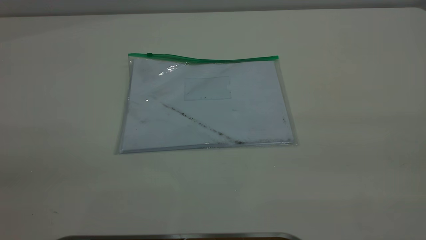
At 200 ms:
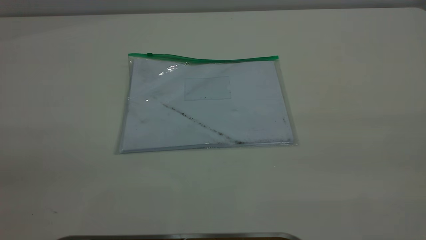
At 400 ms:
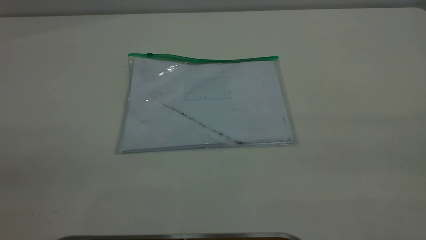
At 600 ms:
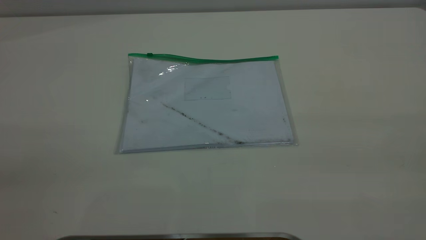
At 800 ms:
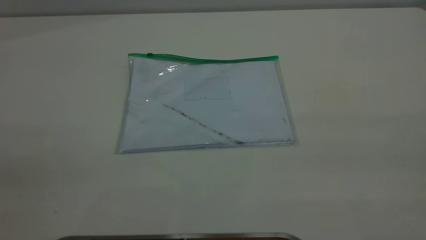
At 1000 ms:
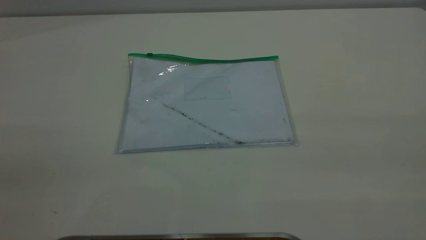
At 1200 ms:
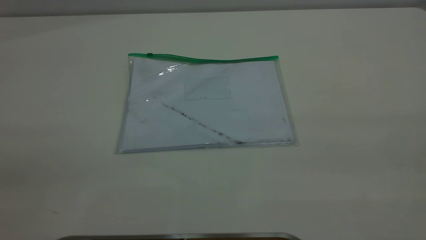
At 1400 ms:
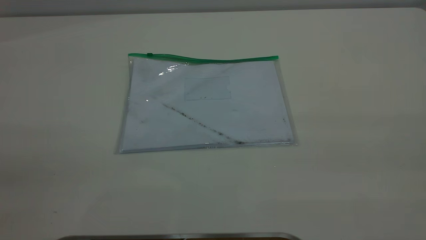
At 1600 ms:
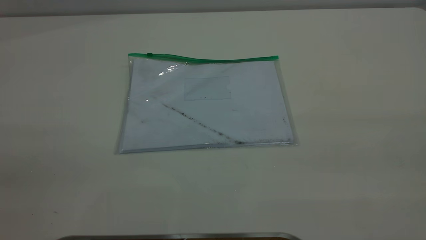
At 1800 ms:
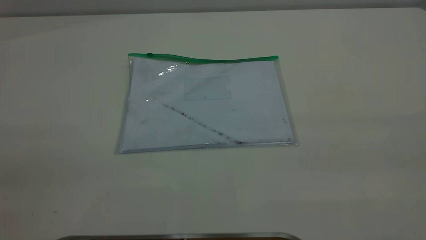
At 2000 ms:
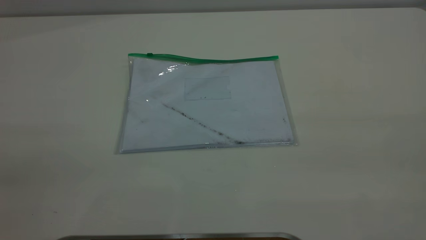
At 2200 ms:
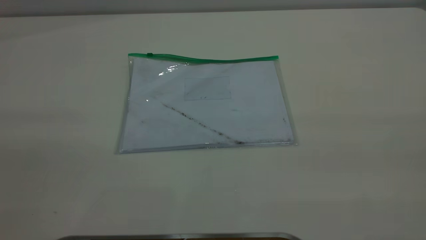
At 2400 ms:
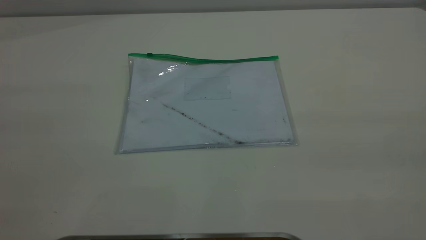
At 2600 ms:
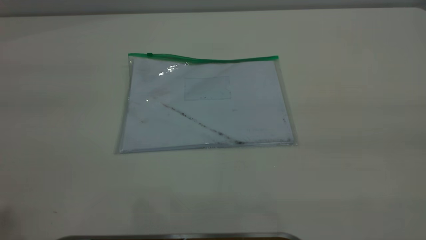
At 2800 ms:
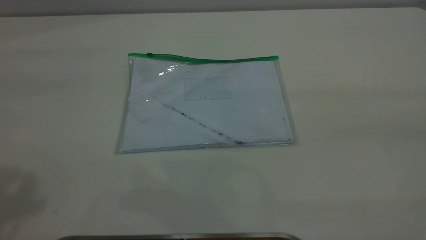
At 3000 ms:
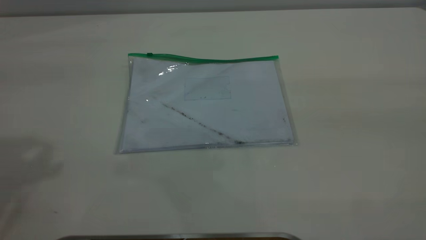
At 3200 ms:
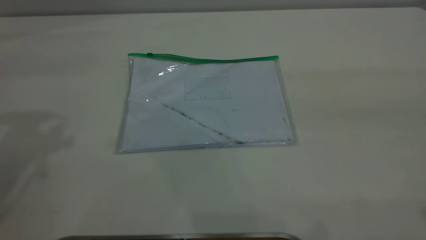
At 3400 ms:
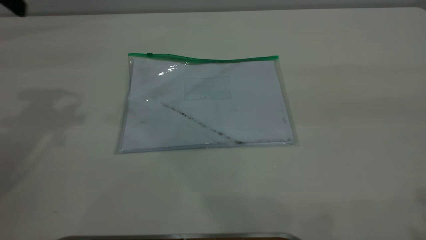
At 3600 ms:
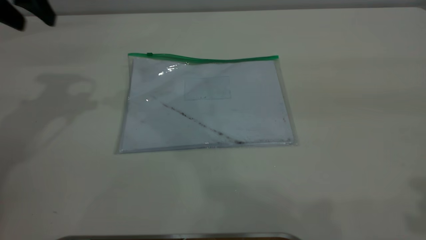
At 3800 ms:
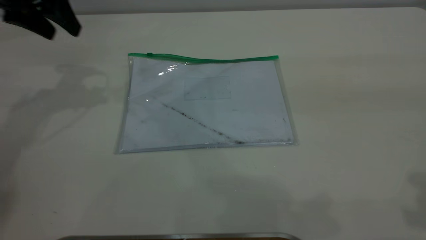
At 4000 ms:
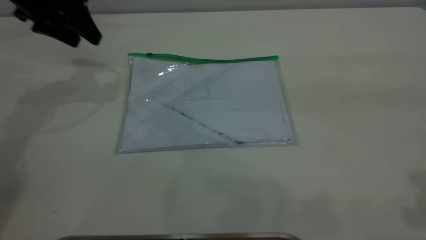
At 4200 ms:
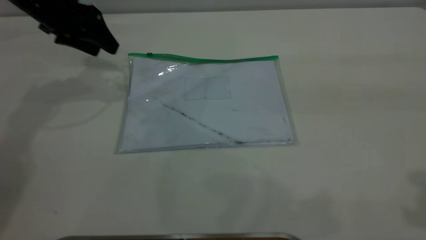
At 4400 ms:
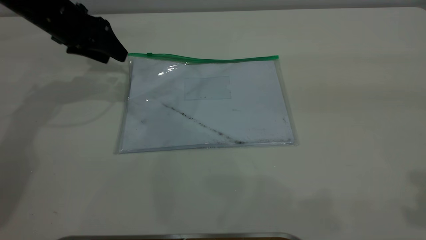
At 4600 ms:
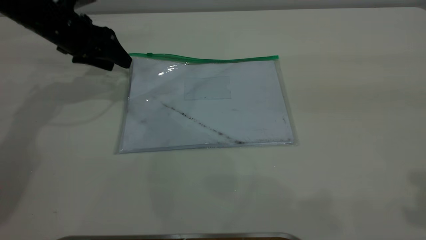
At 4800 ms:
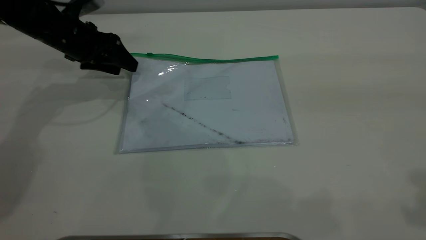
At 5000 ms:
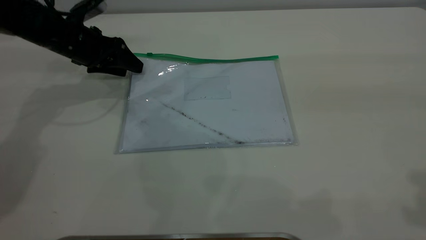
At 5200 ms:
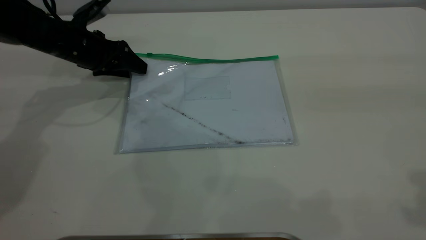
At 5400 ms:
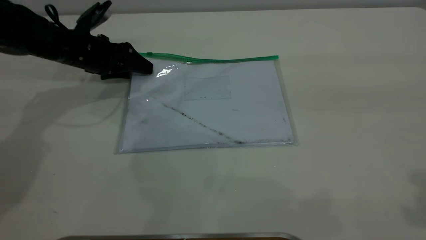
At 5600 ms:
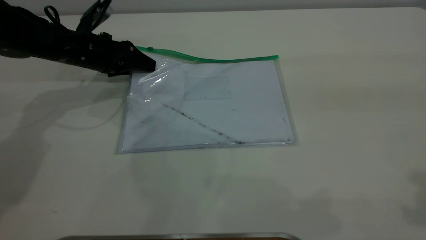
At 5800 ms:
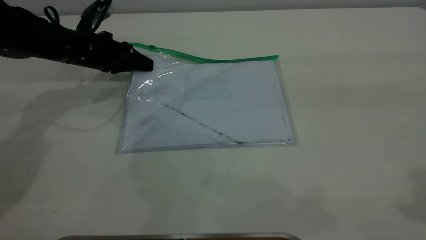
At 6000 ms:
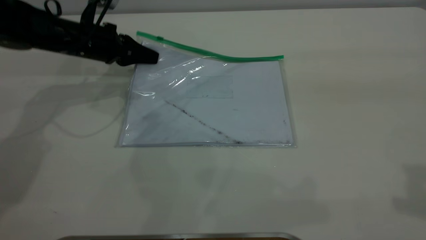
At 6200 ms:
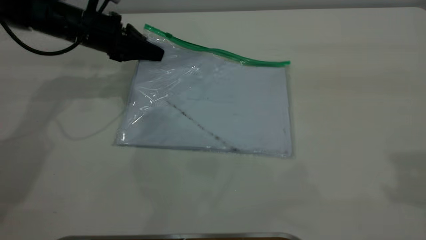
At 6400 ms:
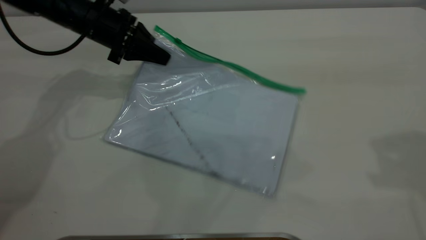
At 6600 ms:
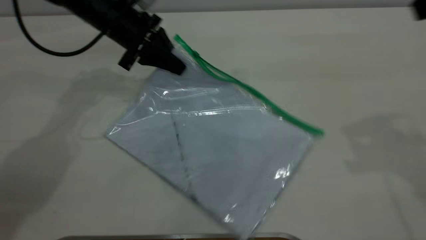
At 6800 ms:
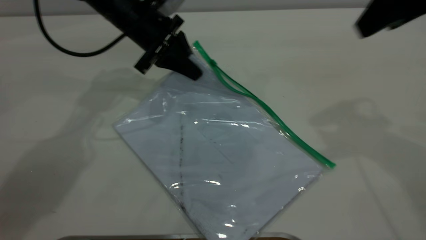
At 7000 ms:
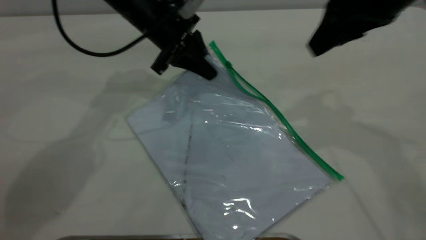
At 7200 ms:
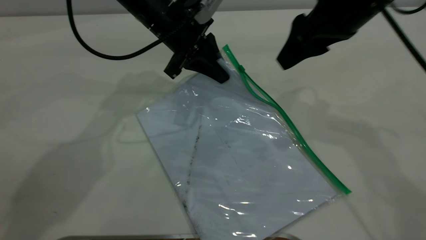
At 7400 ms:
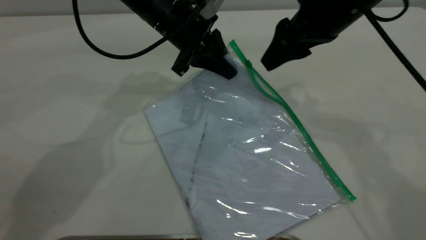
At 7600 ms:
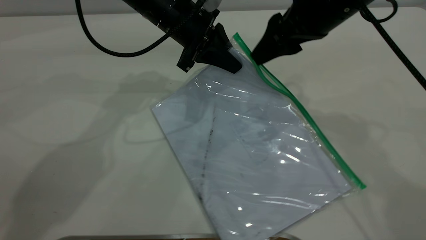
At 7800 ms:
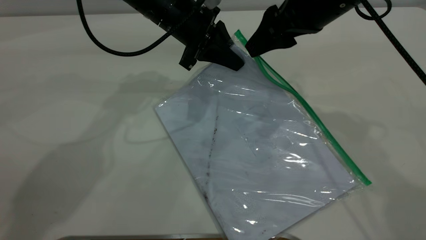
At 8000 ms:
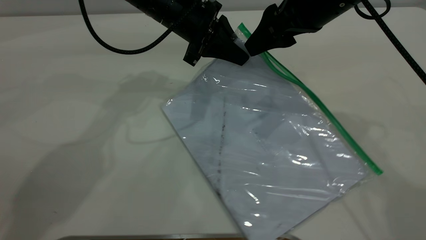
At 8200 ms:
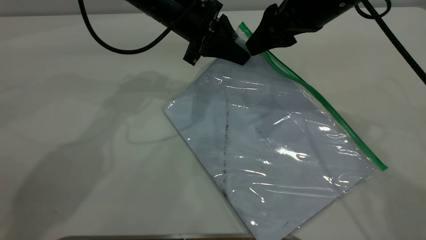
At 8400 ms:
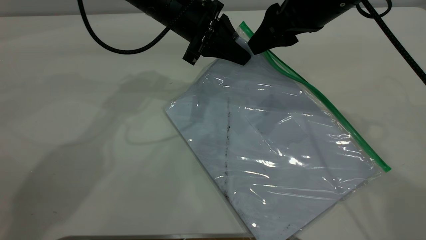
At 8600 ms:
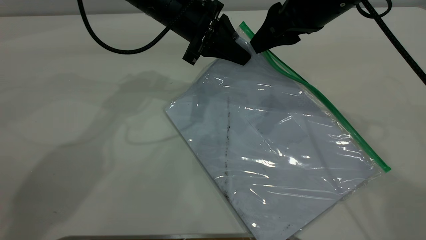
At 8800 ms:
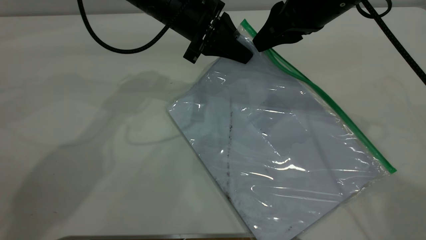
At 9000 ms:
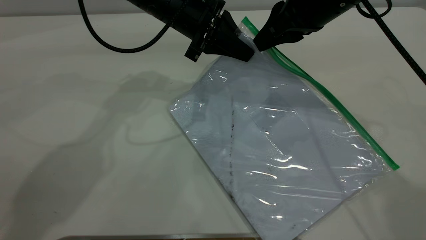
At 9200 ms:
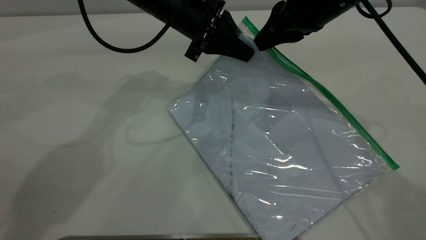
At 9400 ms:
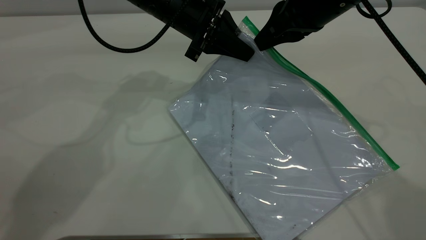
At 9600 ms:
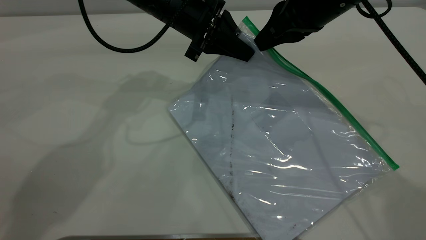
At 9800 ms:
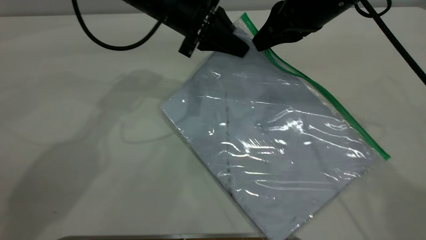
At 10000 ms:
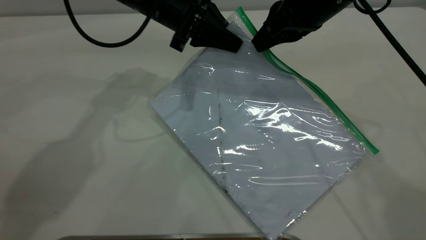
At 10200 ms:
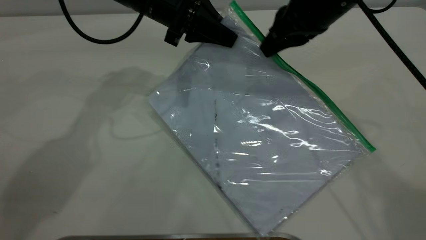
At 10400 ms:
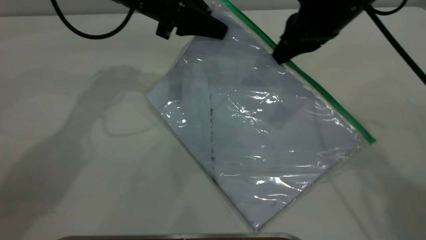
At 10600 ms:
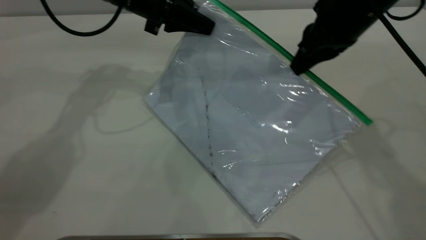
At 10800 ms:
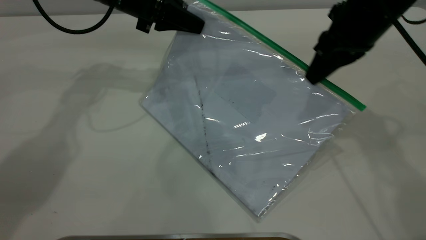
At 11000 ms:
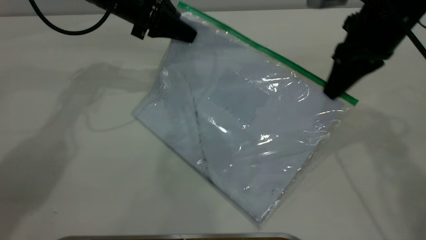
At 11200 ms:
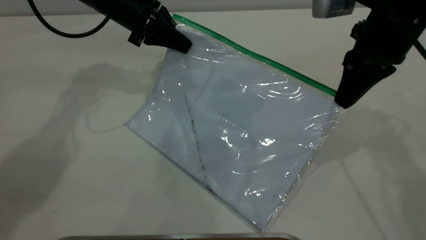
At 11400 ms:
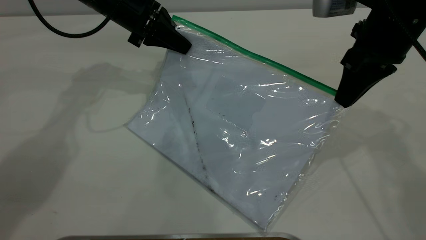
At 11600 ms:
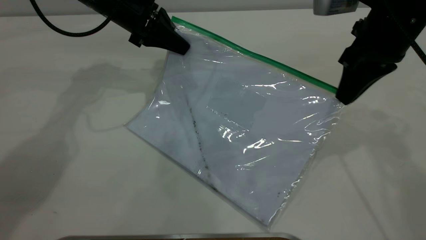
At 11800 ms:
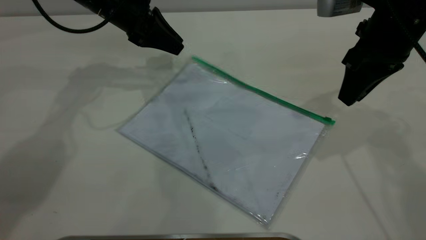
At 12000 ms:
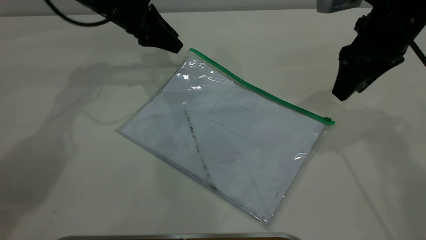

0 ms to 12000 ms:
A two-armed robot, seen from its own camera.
Step, 0 ms to 6000 ms: Pick up the transparent plastic bag with the left gripper.
Step, 6200 ms to 11600 ms: Pulling up the zipper on the transparent plastic bag with the right gripper to close it.
0 ms to 1600 ms: The two grippers keep their place.
3000 ms to 4400 ms: The left gripper shifts about 30 cm downward and forward.
4400 ms to 6000 ms: The left gripper heads downward, covering some 5 cm, and closes its fingers.
6000 ms to 7600 ms: The right gripper heads forward, to the left and downward, covering about 30 cm; the left gripper travels to the right by roughly 15 cm.
7600 ms to 9000 ms: The right gripper closes its fingers.
9000 ms to 10400 ms: The left gripper moves to the left, about 5 cm.
10400 ms to 12000 ms: The left gripper heads to the left, covering some 5 cm, and opens. The right gripper shifts about 5 cm to the right, and opens up.

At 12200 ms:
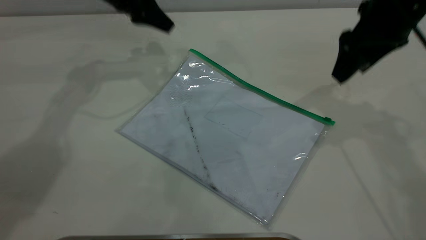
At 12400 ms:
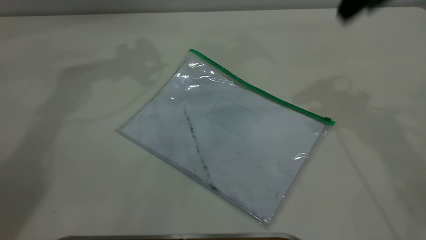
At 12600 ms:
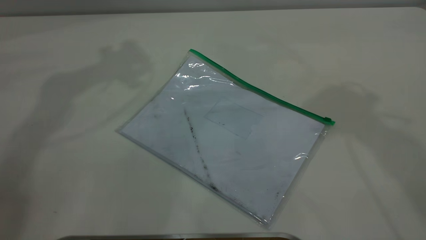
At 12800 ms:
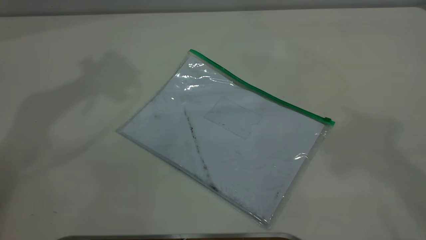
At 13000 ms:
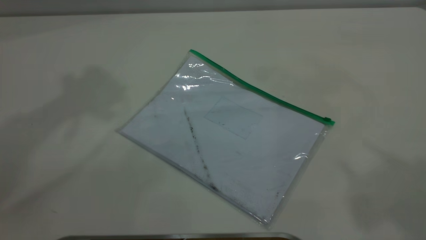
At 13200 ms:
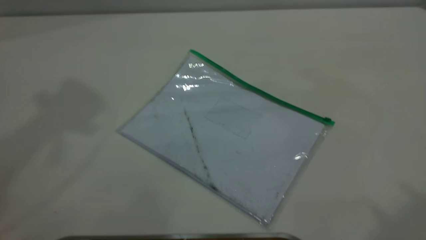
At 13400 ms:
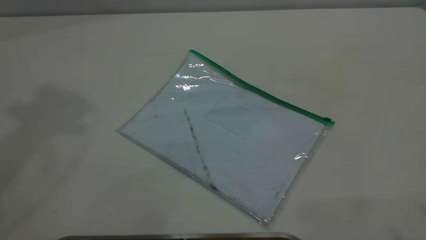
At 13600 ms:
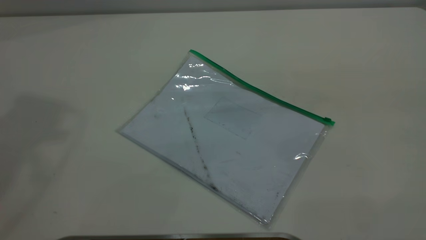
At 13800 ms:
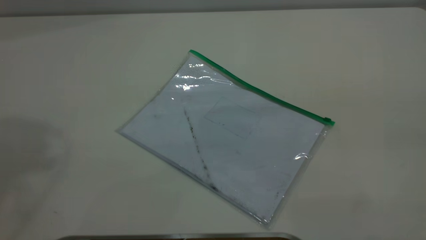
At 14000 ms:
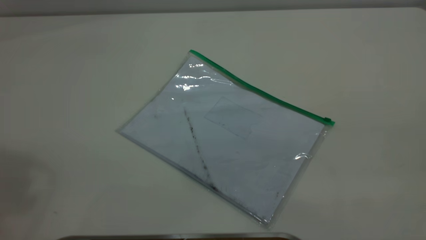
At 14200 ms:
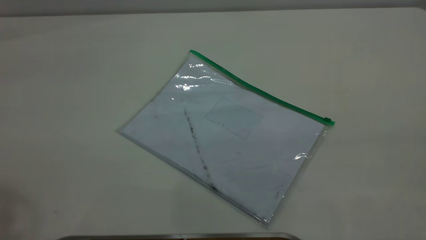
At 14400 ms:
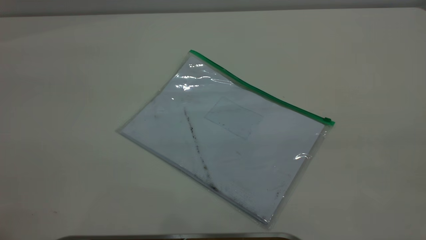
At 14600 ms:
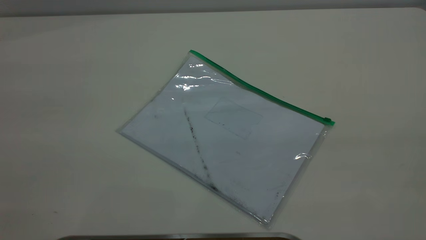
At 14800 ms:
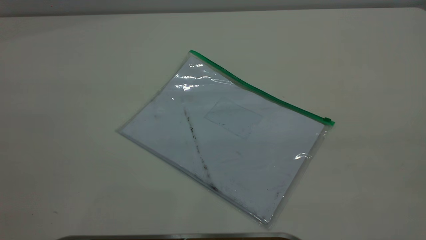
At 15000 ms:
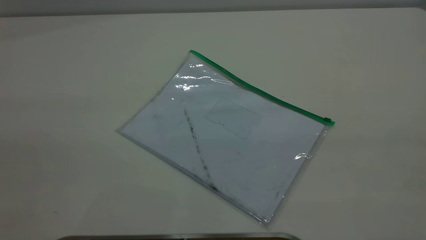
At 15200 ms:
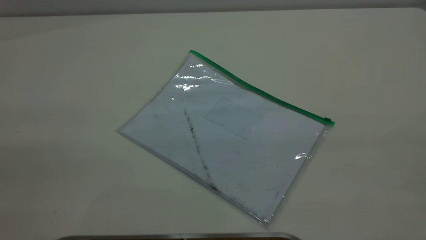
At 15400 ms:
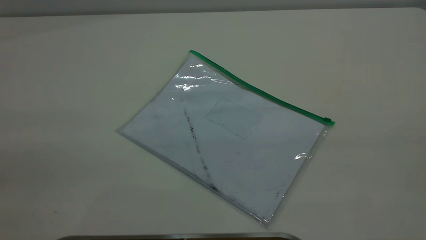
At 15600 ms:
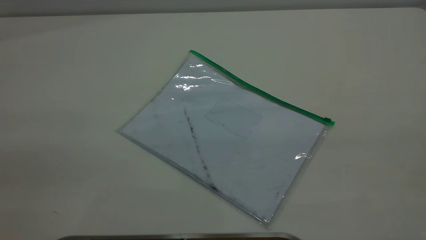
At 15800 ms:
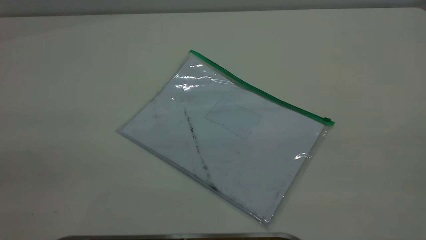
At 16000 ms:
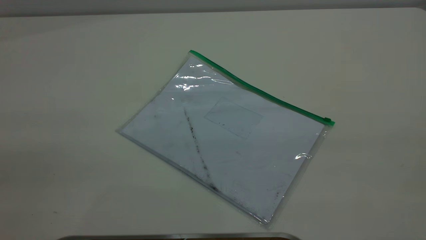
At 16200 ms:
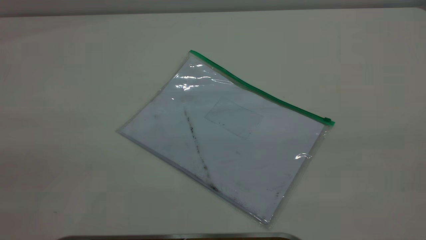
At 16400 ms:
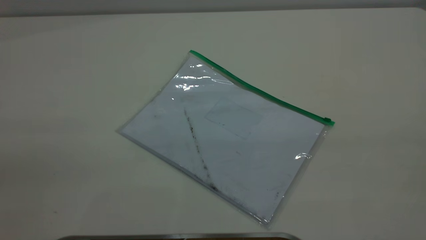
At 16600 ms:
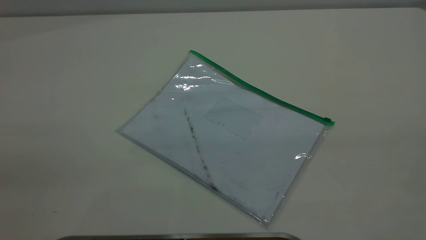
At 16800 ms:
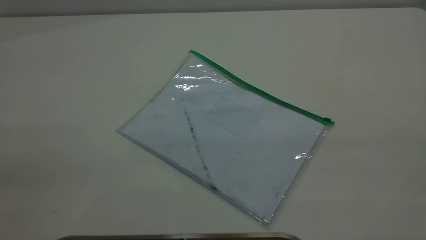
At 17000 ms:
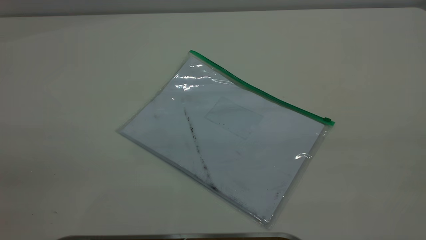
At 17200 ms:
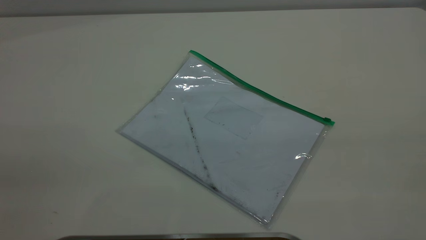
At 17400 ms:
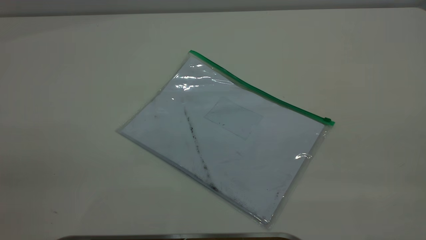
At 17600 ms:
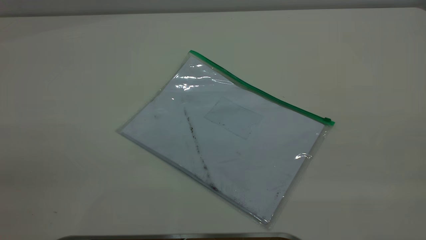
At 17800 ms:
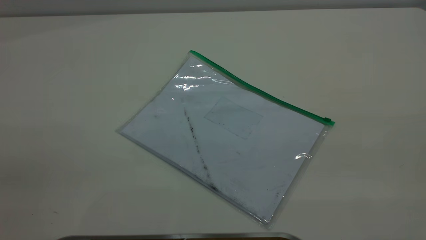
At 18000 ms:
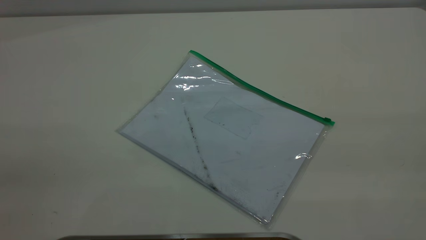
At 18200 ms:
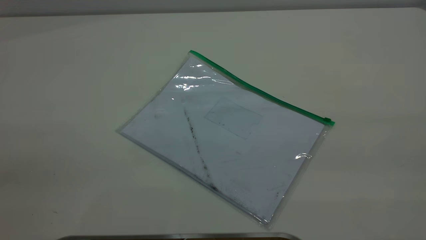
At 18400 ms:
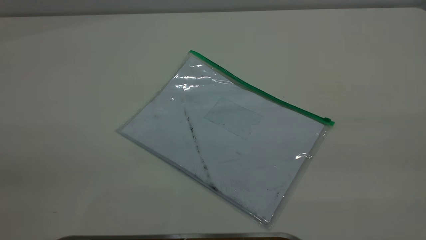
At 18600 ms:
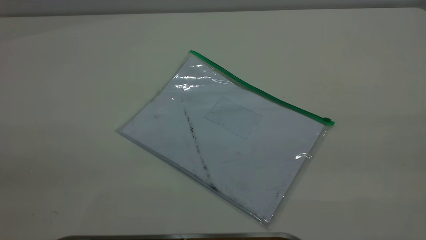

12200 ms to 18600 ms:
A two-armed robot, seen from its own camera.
12200 ms to 13800 ms: The right gripper goes some 40 cm backward and upward; the left gripper moves upward and backward, some 40 cm.
